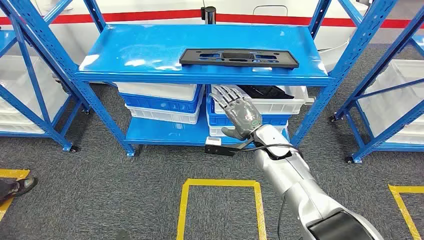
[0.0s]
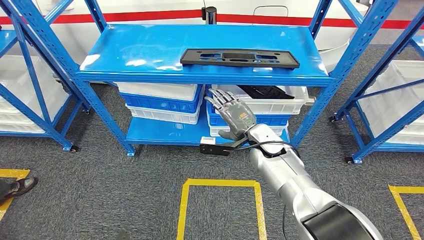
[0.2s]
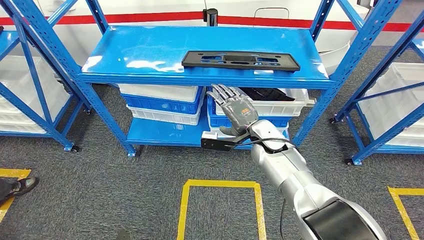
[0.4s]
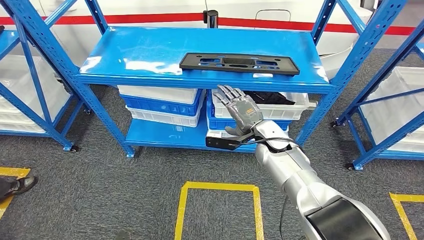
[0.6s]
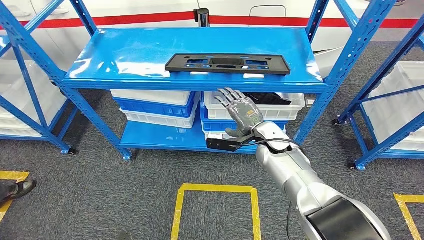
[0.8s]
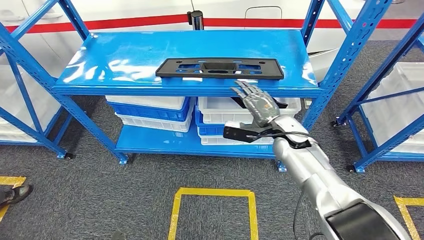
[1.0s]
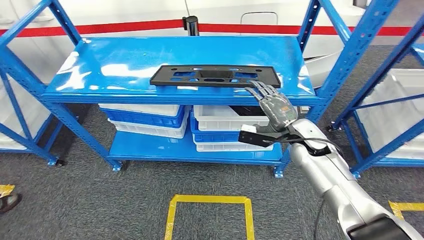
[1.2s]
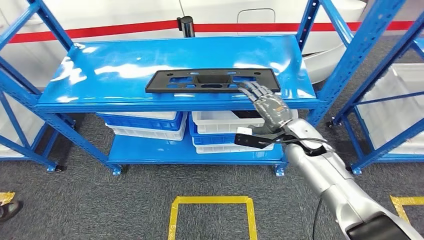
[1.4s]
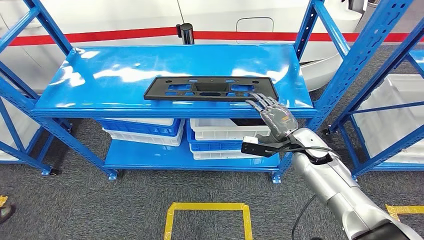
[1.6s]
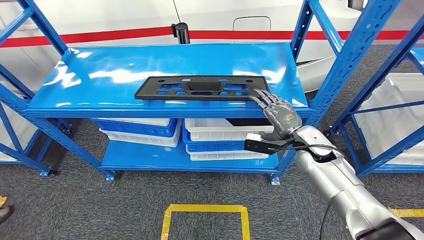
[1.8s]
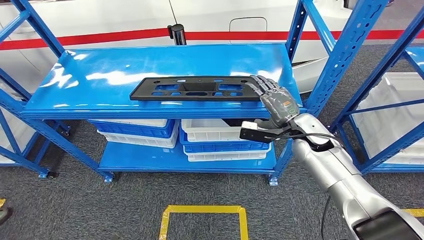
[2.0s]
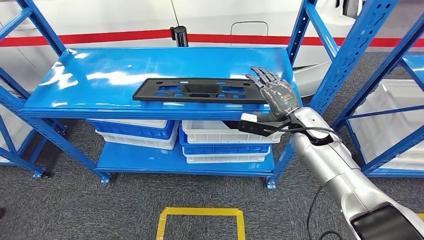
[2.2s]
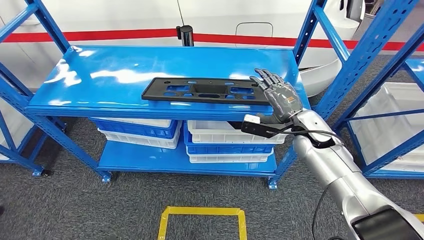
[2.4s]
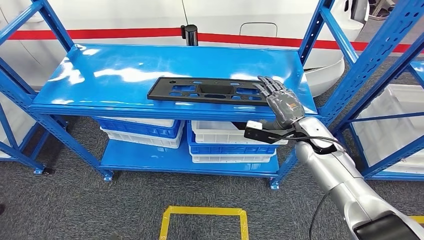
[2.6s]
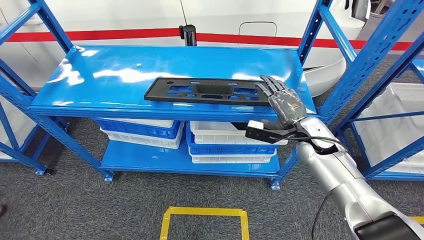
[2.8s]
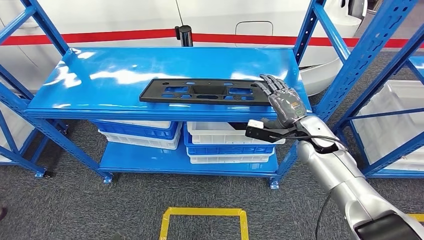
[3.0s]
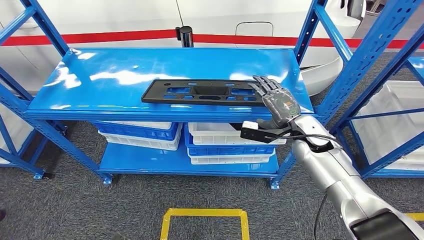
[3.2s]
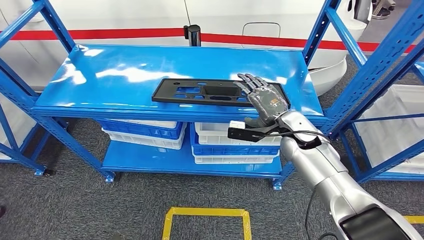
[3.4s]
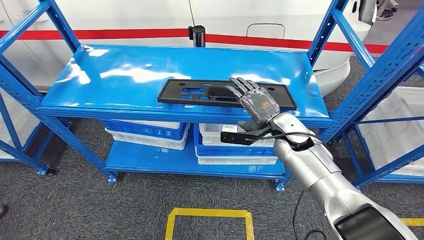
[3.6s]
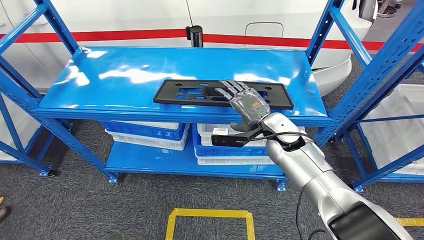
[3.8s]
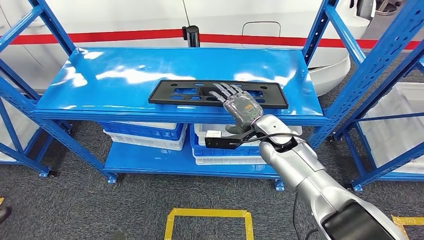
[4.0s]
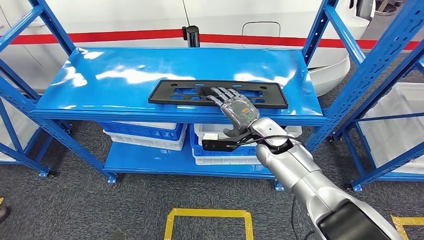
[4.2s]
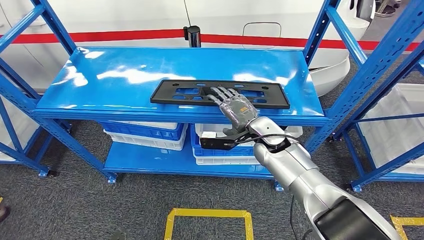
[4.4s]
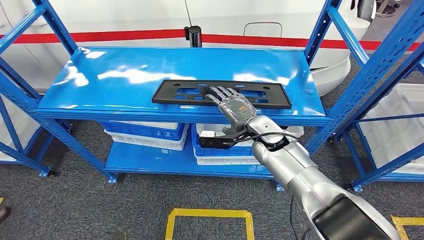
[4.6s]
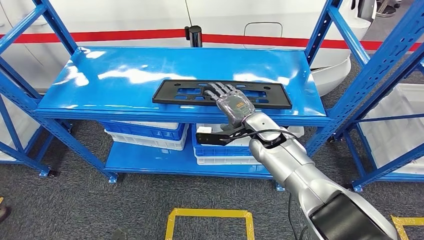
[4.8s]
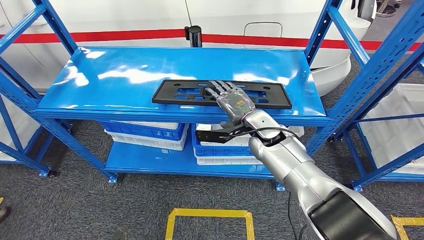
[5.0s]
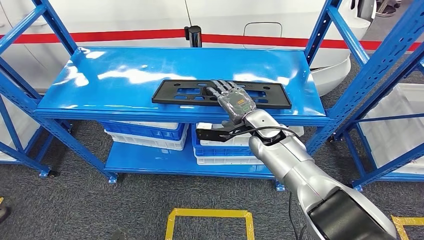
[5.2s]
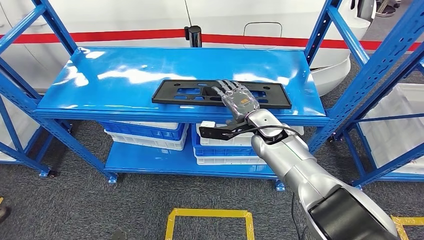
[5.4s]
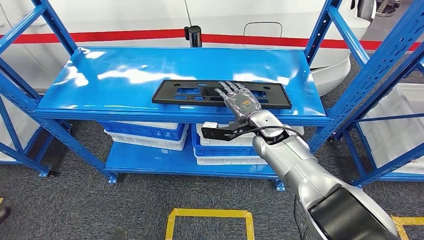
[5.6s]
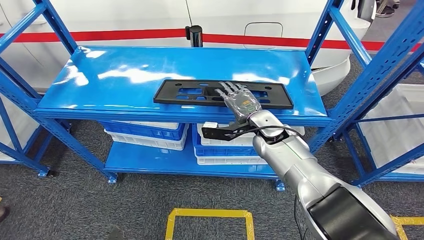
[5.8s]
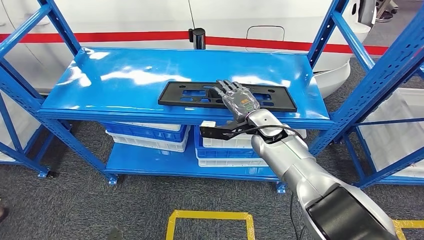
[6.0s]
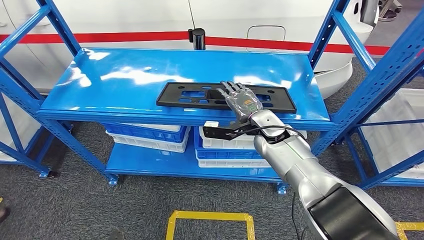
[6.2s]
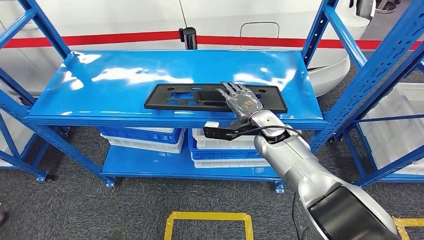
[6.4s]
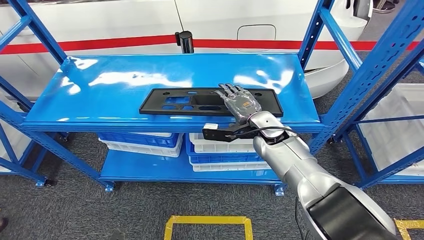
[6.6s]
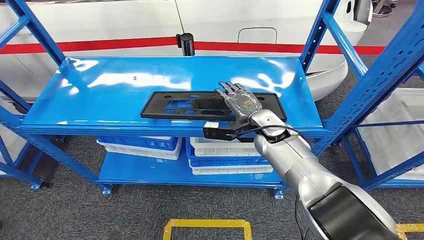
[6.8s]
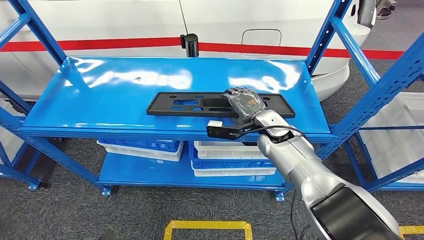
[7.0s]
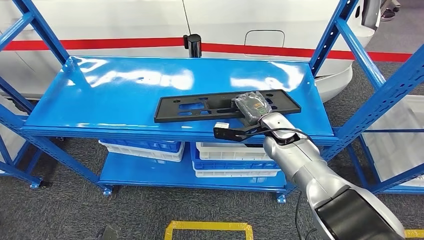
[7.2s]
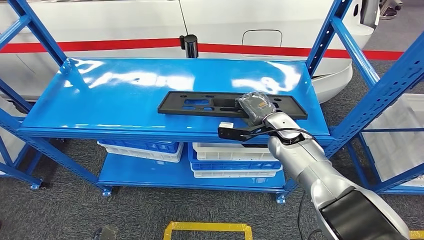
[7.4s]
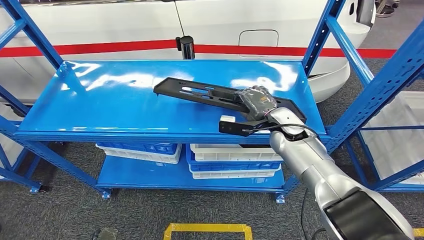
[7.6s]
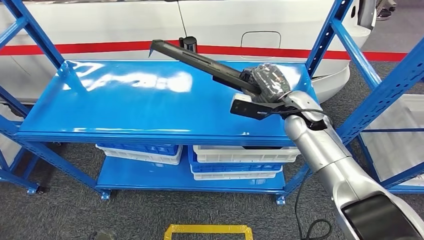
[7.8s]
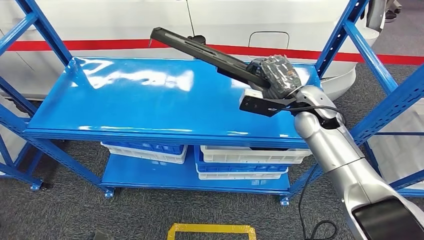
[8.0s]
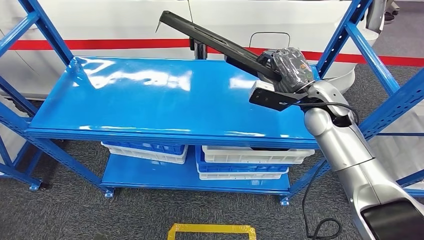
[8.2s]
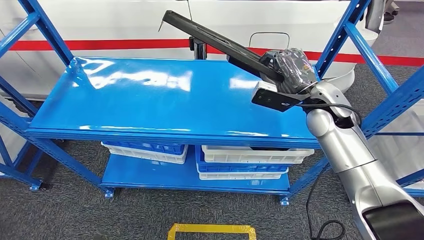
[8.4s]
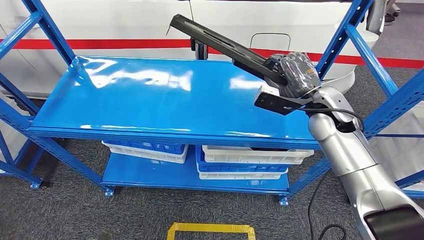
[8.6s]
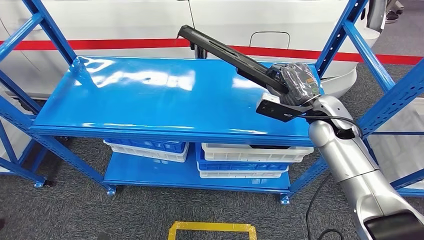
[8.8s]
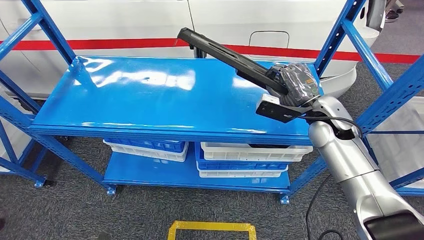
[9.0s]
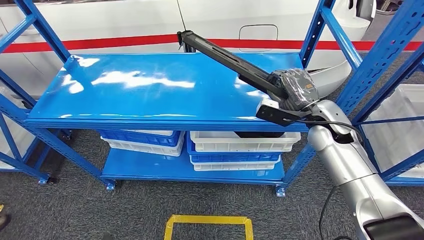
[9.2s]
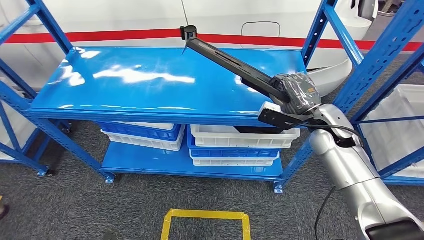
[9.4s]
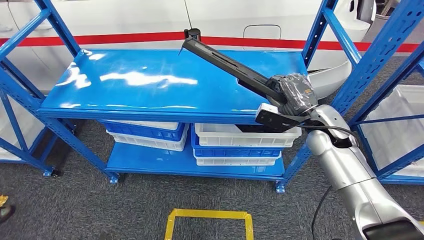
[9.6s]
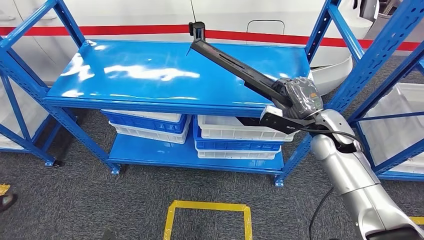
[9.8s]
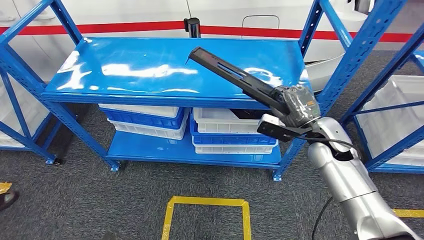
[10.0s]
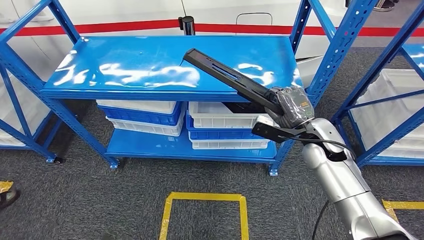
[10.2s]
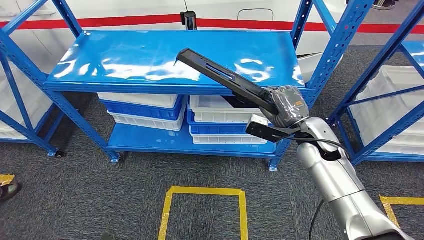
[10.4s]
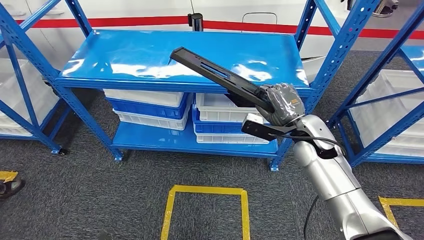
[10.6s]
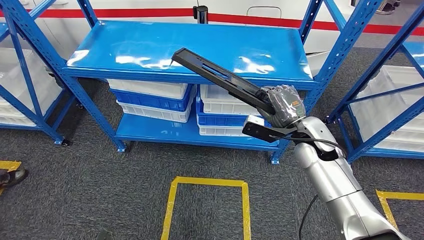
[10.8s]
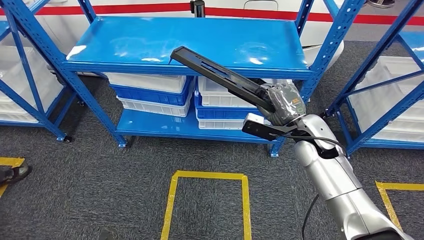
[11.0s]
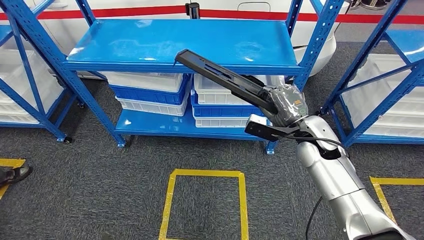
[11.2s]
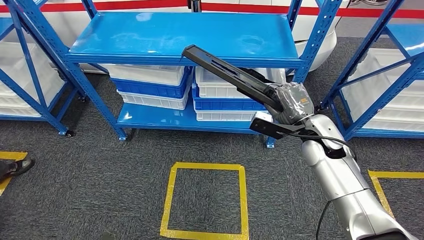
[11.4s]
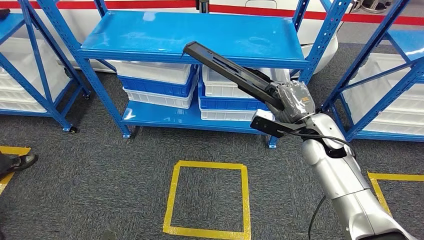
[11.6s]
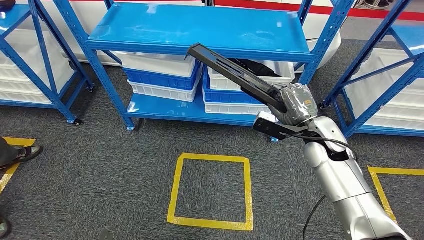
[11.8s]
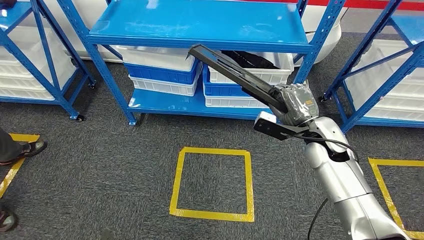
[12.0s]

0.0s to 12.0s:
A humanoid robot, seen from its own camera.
Step, 0.0s to 11.4s: Pick up the large material from the shelf.

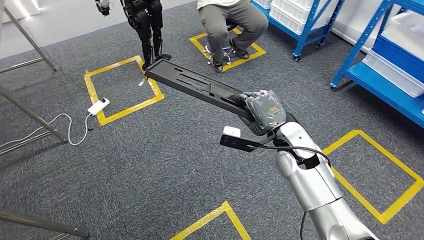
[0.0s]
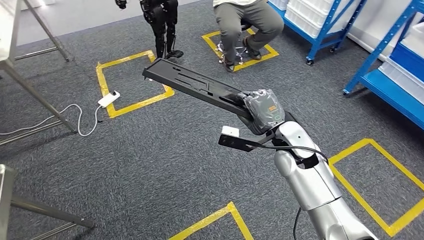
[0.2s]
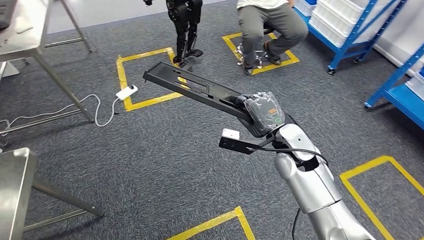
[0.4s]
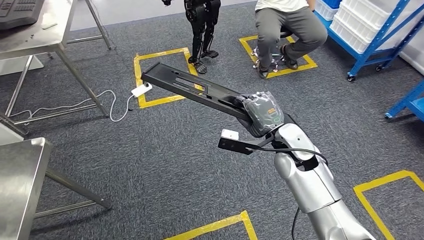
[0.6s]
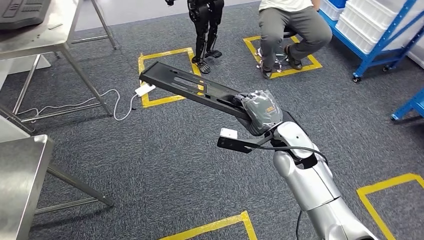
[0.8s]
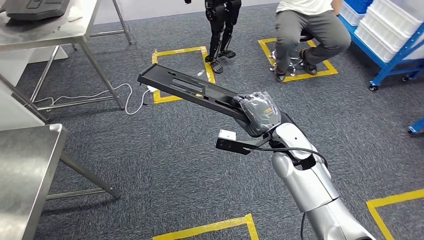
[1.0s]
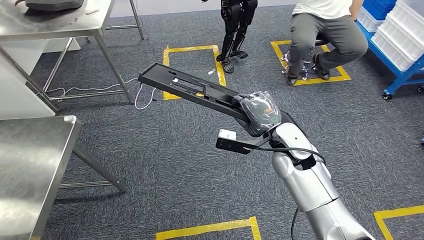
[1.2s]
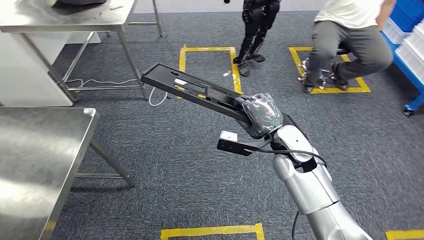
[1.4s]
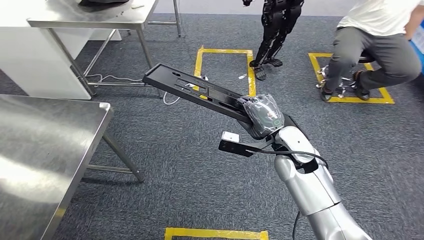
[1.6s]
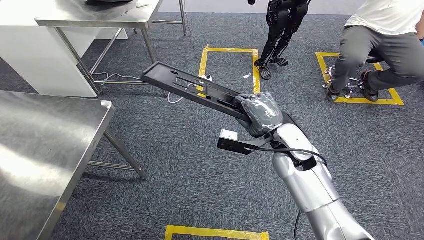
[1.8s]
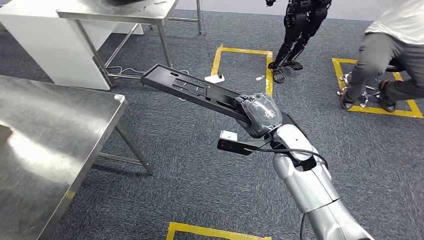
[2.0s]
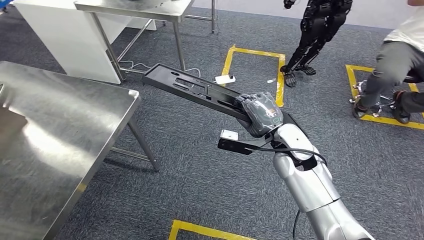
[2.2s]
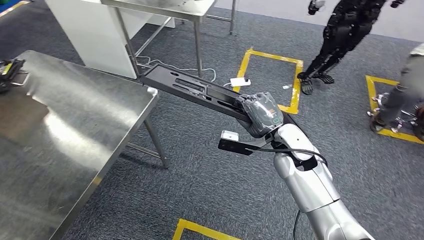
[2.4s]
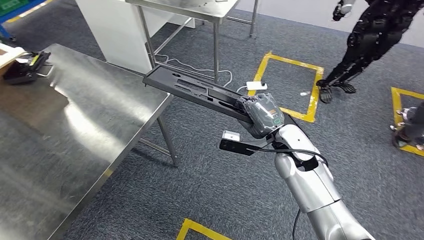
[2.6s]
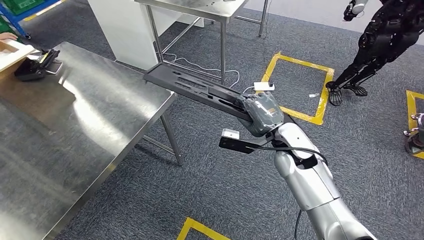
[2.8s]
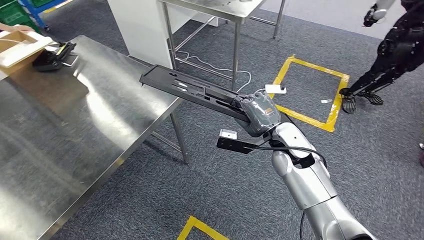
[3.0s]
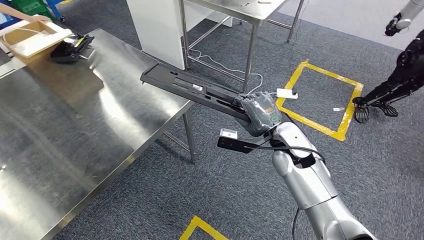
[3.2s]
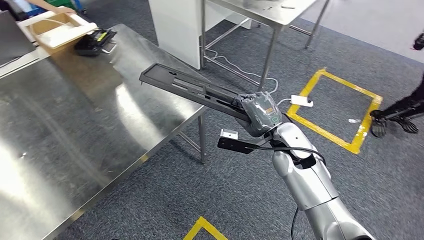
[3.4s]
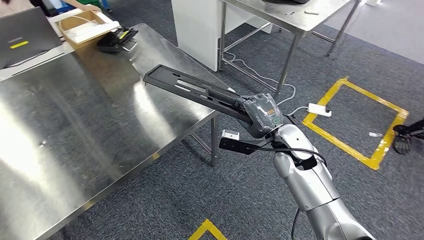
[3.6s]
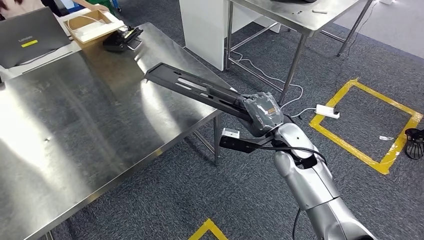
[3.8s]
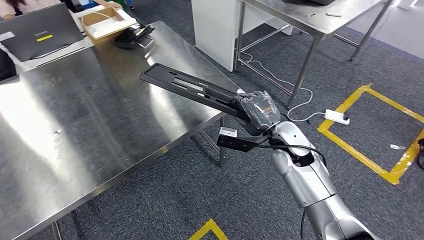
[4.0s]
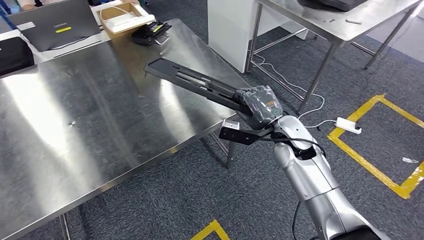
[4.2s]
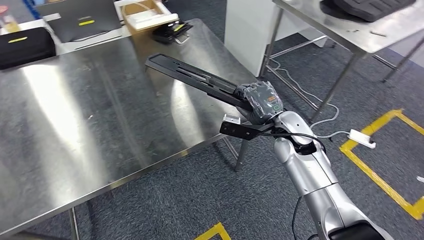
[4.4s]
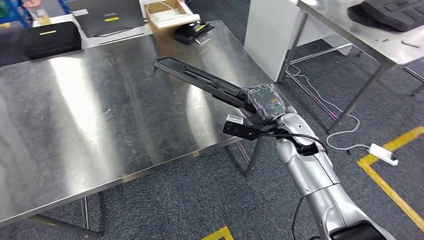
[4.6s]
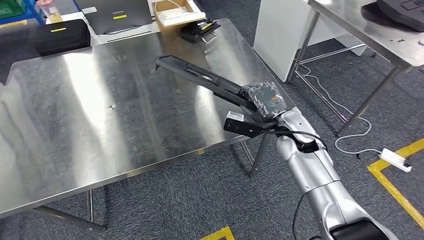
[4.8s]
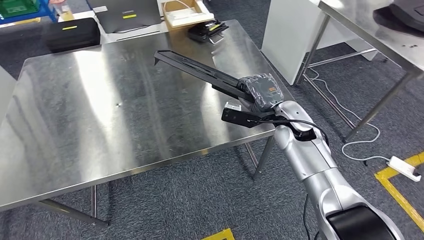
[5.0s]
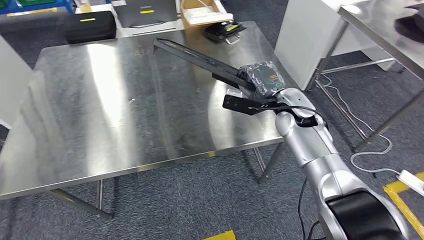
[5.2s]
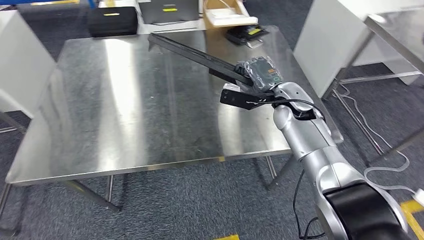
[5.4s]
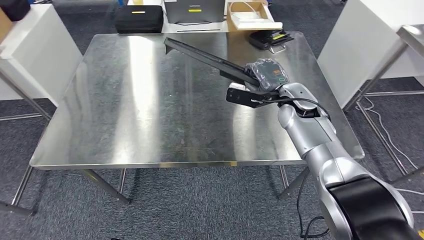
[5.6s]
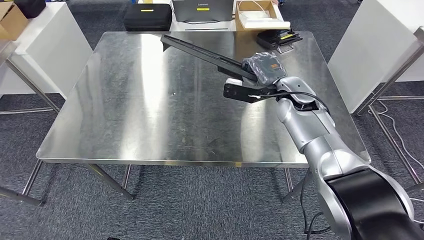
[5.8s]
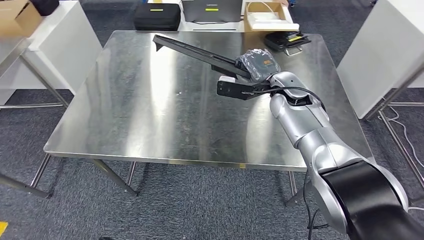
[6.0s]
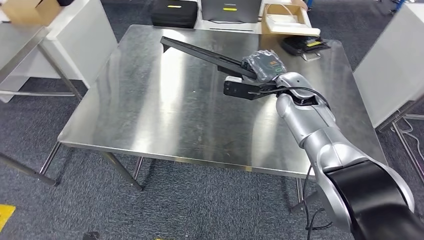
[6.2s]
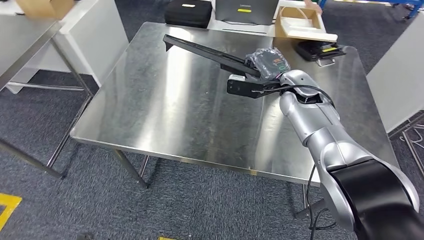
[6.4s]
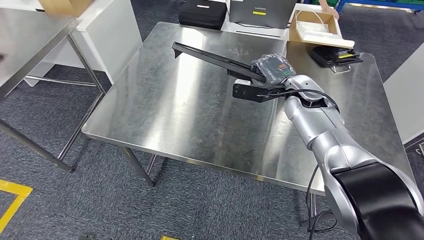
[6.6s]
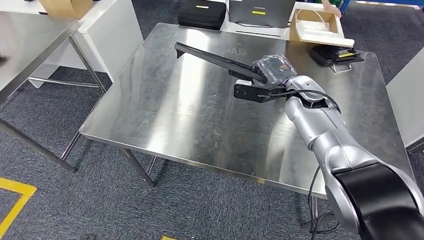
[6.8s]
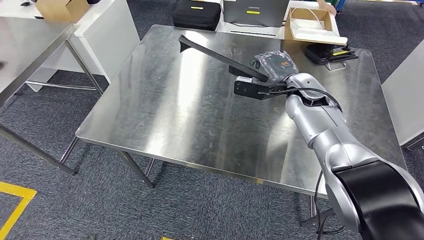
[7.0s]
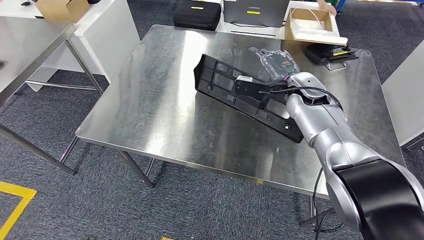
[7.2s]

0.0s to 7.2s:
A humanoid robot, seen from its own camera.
Step, 0.0s to 5.6s: Move the large material to the workbench.
